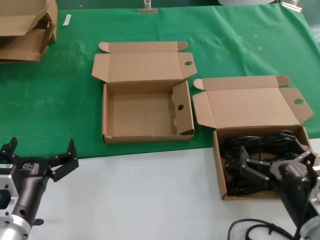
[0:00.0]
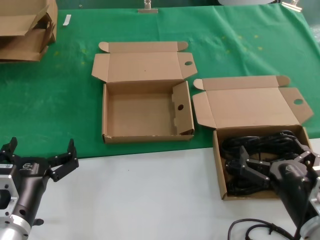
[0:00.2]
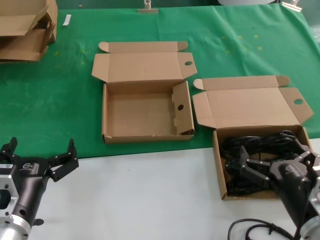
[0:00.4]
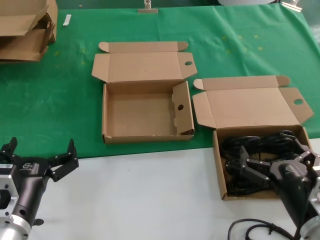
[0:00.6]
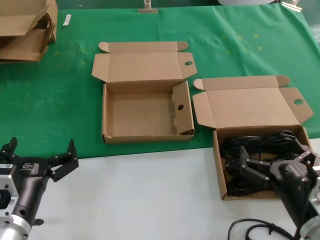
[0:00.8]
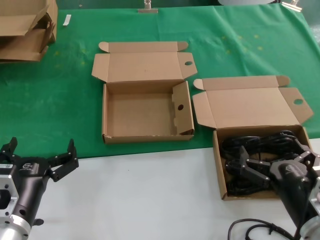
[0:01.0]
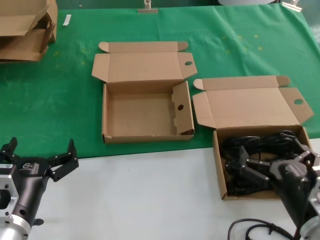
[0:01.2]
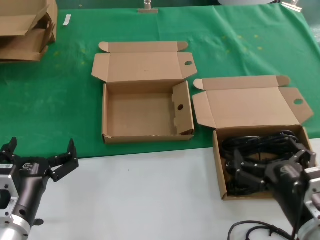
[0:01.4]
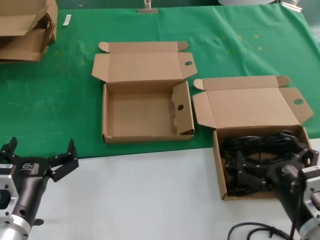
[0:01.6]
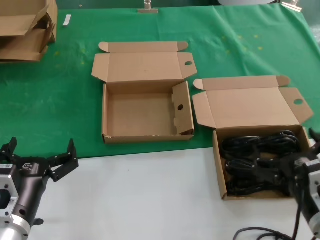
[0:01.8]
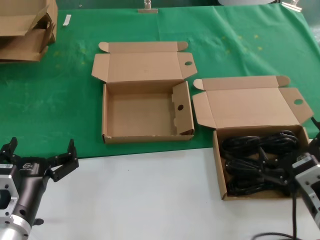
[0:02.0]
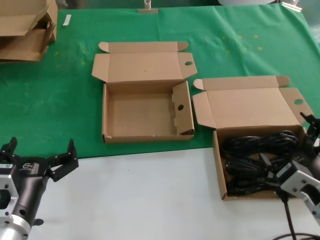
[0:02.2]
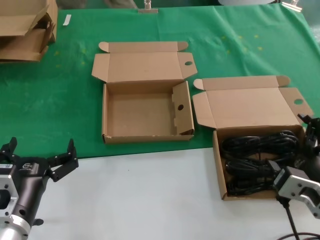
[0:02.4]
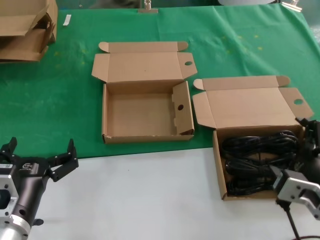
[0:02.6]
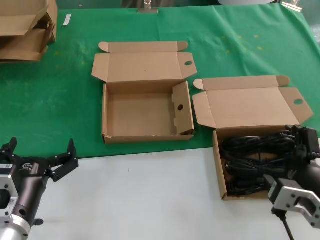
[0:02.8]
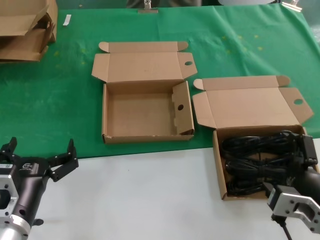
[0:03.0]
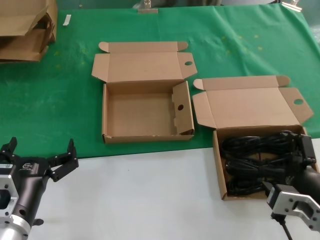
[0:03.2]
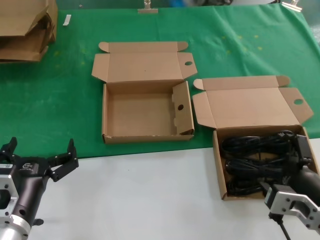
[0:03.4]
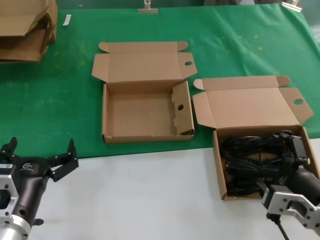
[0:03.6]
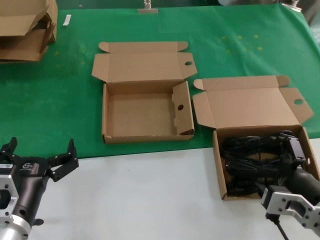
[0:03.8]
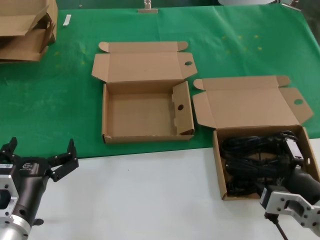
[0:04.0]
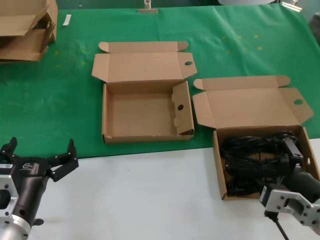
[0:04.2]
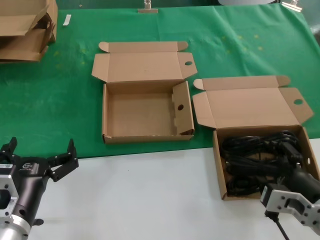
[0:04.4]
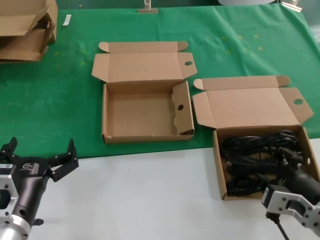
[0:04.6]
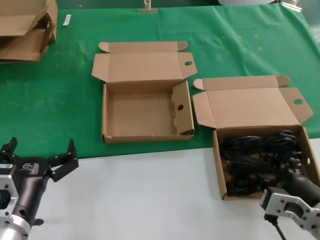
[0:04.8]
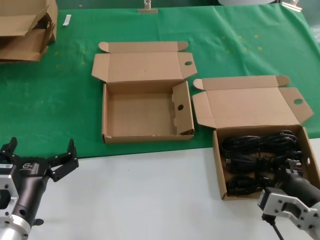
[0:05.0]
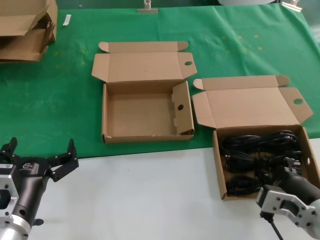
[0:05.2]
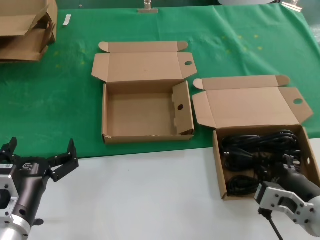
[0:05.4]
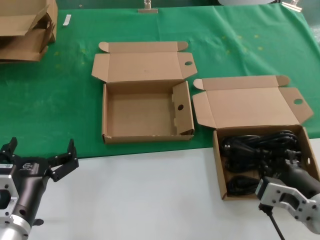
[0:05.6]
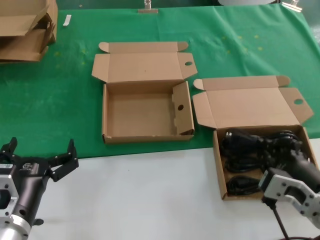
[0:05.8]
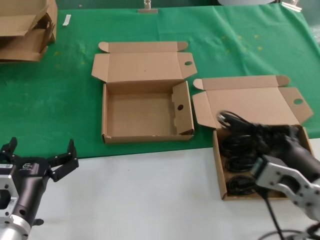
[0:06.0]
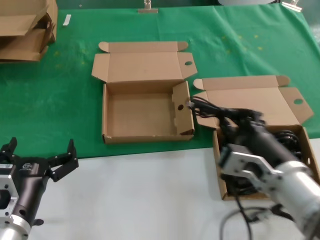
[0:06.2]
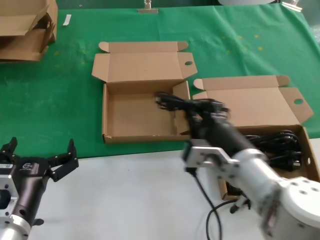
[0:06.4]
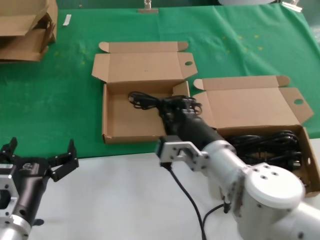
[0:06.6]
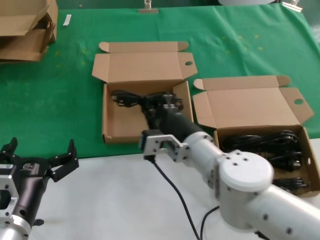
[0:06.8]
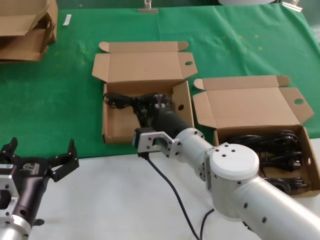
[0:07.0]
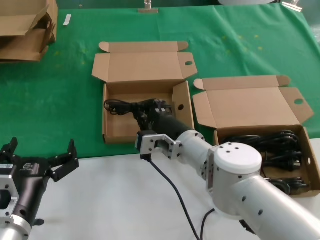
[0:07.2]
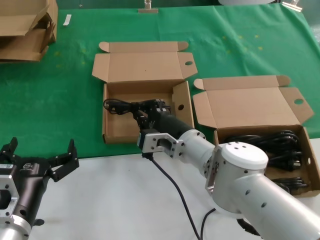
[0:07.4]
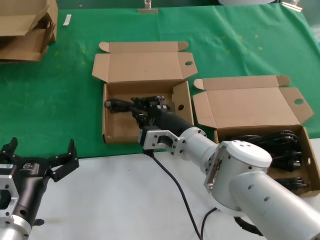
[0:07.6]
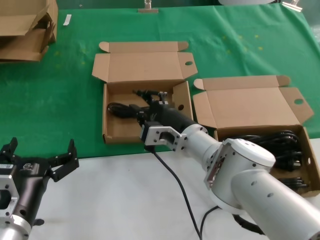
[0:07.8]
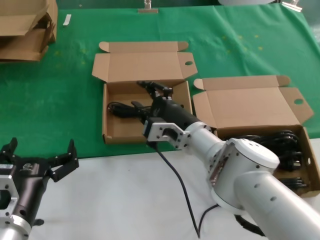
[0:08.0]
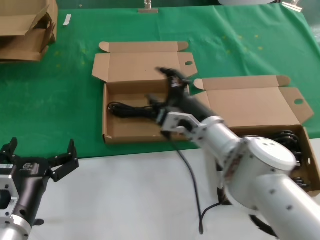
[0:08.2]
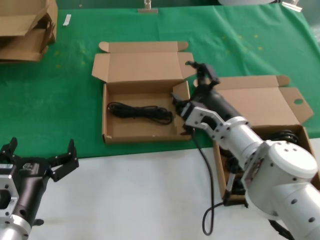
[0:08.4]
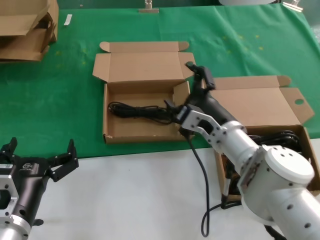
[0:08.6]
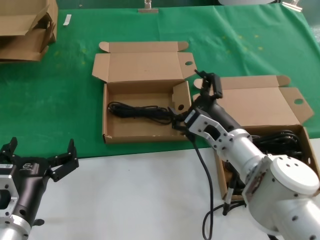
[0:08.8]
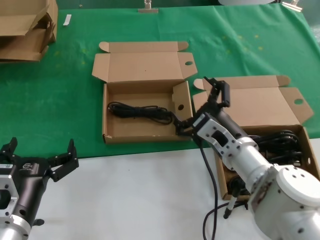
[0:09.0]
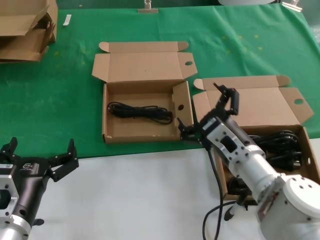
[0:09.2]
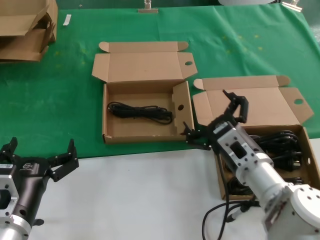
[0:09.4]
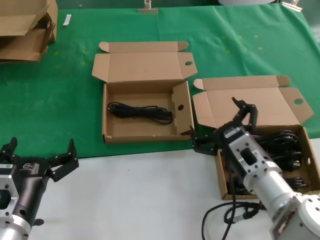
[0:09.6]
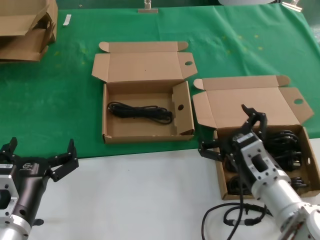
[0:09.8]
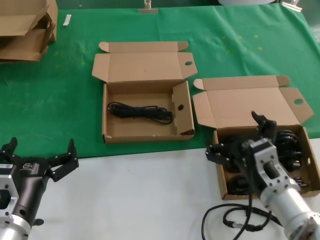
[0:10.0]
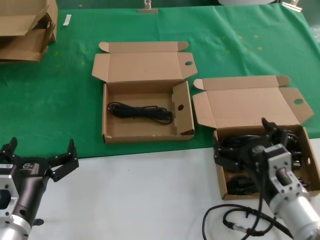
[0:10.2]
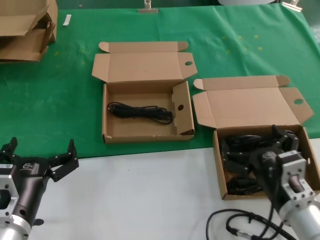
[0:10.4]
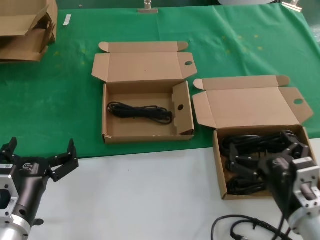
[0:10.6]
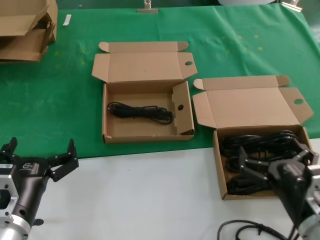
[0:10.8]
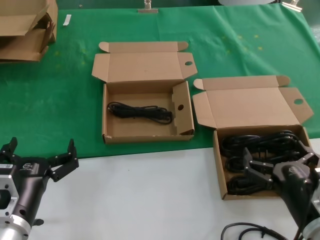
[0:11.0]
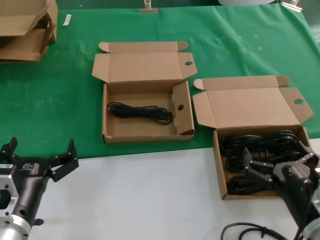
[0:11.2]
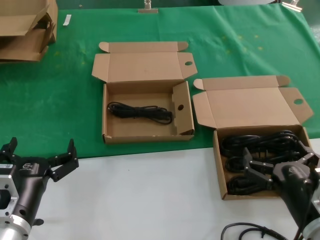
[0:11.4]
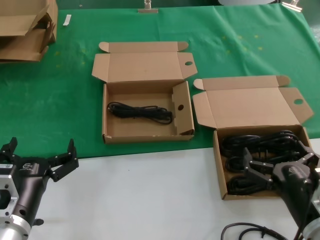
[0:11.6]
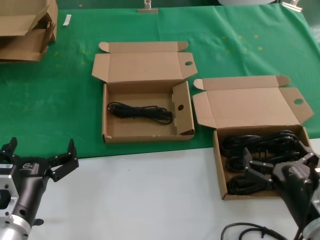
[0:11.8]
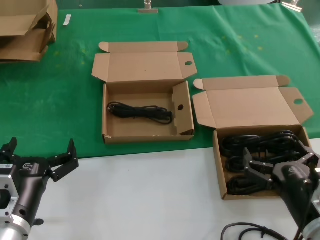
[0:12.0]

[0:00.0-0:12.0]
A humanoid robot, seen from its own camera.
Task of the whole recording: take the parts from the box containing them and put them into an empty box.
Step, 0.0 to 5.0 s: Grasp the data cable.
Step, 5.2 to 7.6 s: Place the data cable in the another box.
0.0 to 1.6 s: The hands stay close to where they were, moving slightly.
1.6 to 3.0 s: The right hand heads upward, covering roughly 5 cm.
3.0 to 4.4 s: The hands stay close to where they were, moving slightly.
4.4 to 6.0 s: The right hand moves upward, approximately 5 cm.
6.0 to 7.6 s: The right hand goes approximately 25 cm forward and to the left.
7.6 to 9.0 s: The right hand shifts approximately 10 cm to the right.
9.0 to 10.4 s: The right hand moves backward and to the right, approximately 15 cm.
10.4 to 12.0 s: The right hand moves some 5 cm.

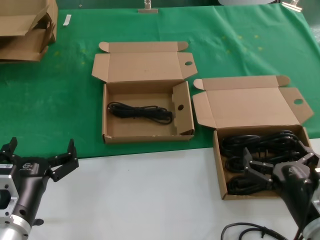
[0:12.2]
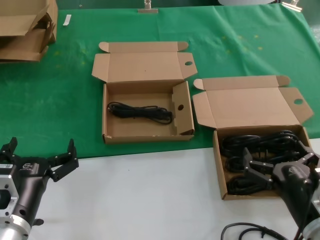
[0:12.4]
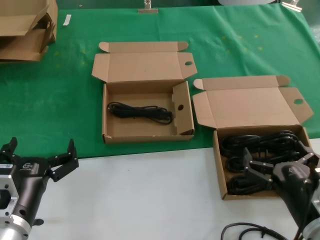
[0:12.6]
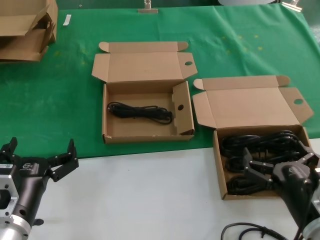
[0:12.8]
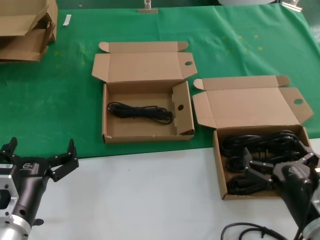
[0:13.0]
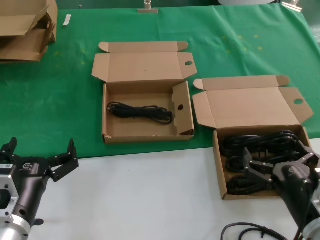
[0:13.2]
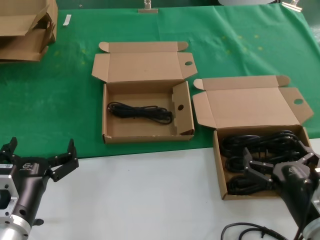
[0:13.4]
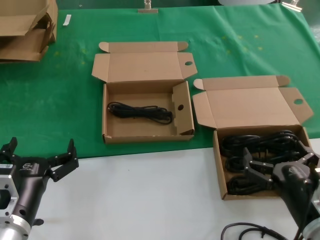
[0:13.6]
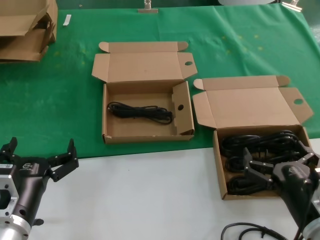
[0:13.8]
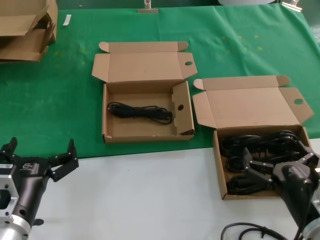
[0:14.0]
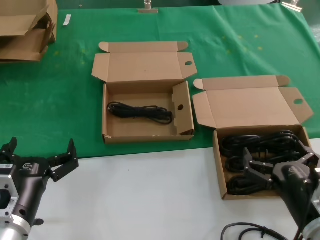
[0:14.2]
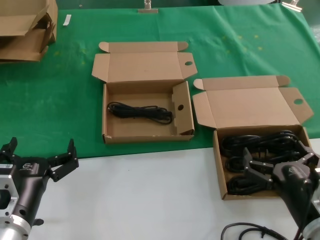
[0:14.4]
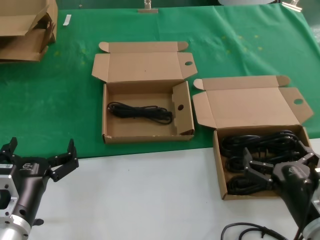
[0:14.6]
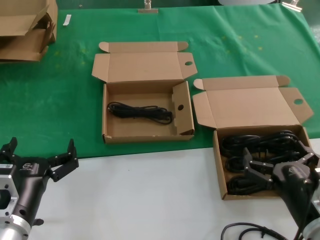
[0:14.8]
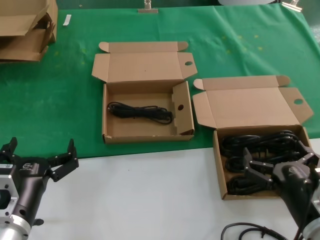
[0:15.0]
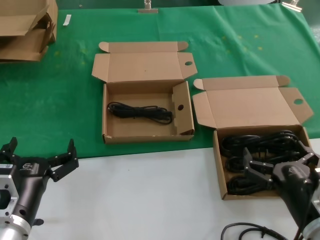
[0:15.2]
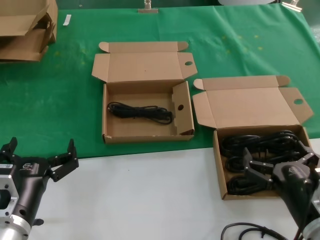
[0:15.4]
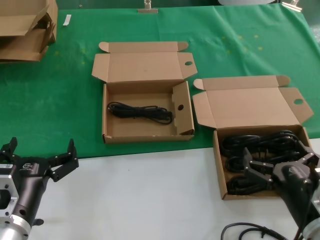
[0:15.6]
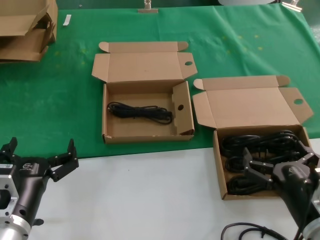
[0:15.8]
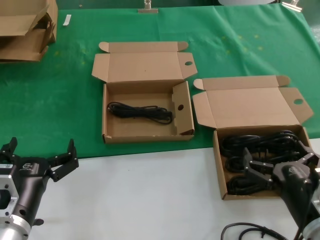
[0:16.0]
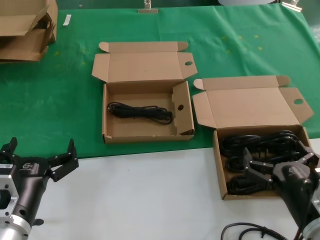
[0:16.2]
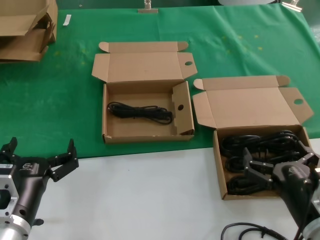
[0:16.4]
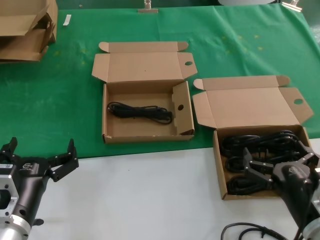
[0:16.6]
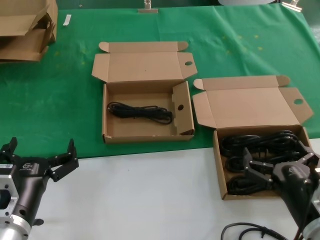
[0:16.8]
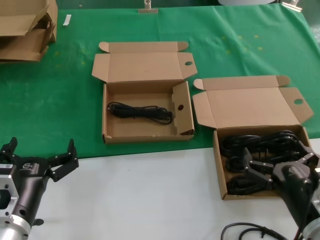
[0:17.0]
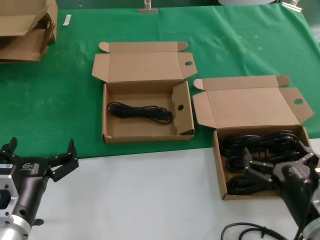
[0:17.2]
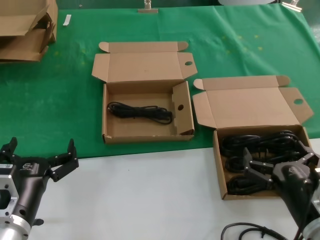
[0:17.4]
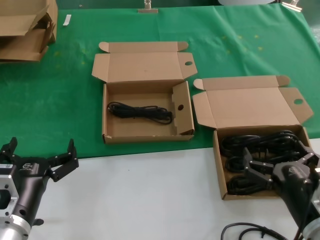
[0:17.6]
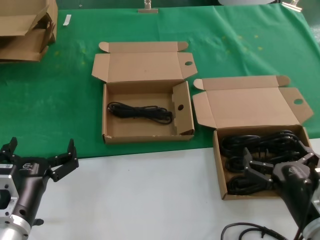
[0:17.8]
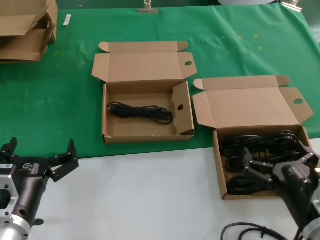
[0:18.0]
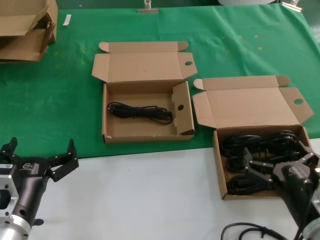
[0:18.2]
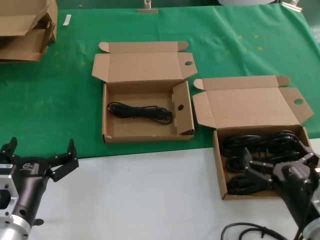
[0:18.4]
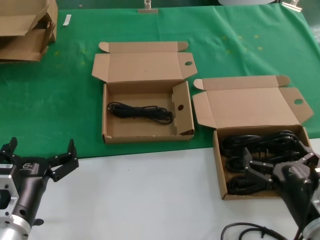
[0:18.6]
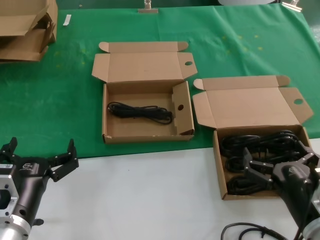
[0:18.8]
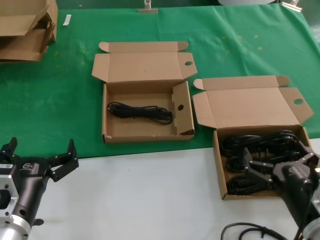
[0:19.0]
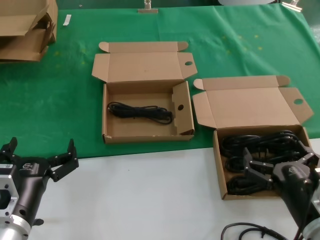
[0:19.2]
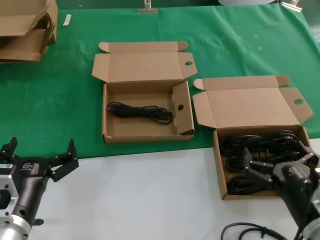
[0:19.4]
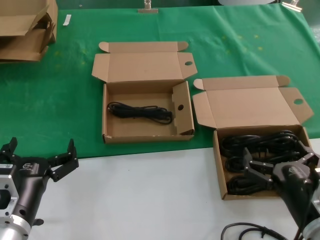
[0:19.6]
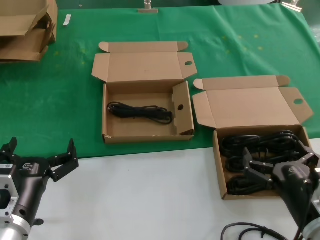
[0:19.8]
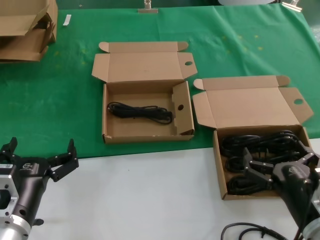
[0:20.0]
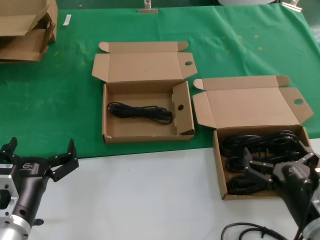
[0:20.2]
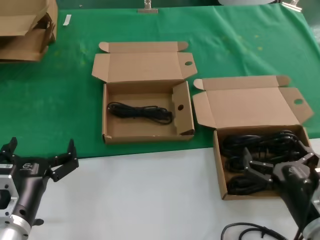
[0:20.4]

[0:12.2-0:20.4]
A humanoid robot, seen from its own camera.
Task of the whole recording: take the parts from the box containing them and put them into an empty box.
12.2 to 20.4 s: Neither hand changes place.

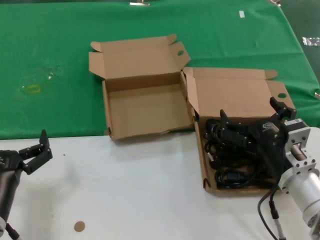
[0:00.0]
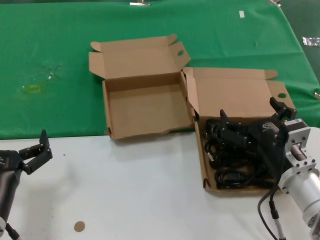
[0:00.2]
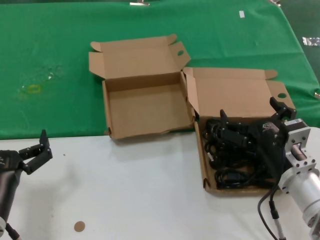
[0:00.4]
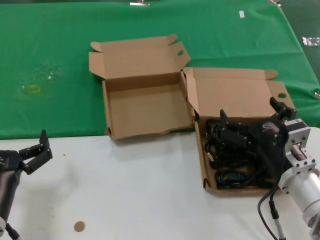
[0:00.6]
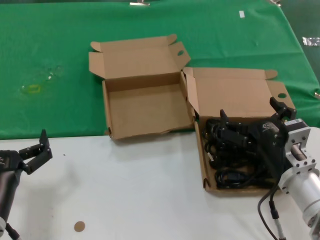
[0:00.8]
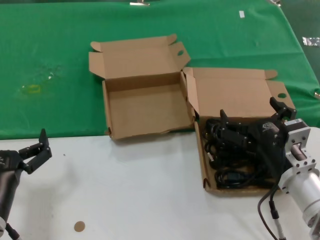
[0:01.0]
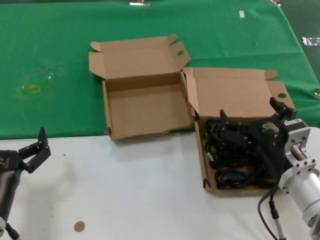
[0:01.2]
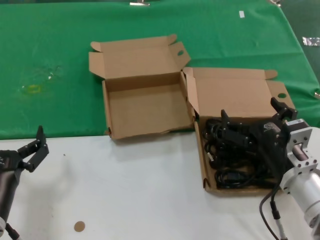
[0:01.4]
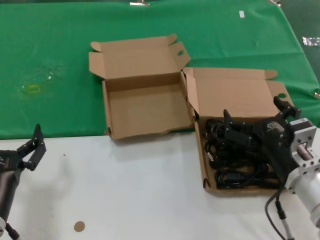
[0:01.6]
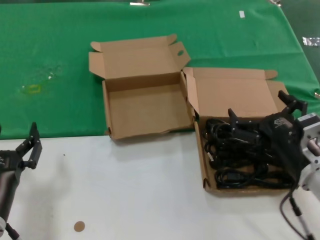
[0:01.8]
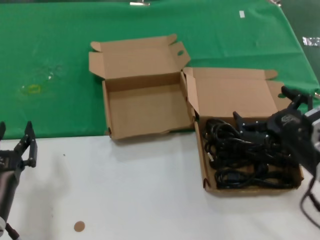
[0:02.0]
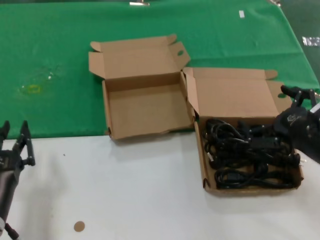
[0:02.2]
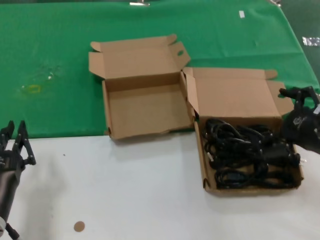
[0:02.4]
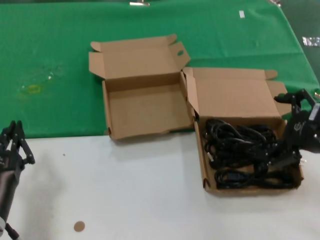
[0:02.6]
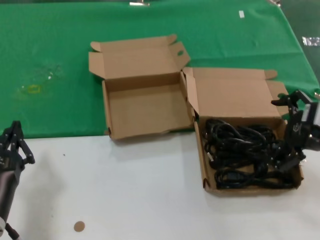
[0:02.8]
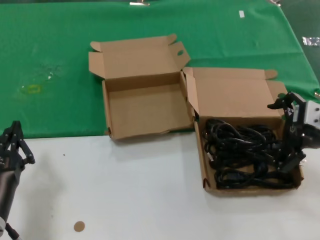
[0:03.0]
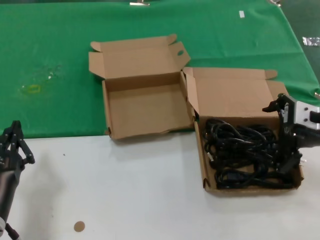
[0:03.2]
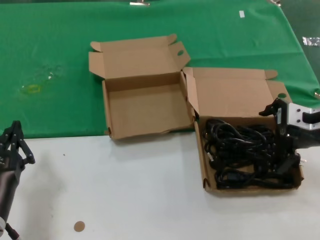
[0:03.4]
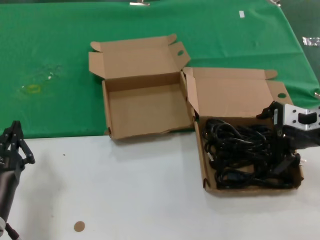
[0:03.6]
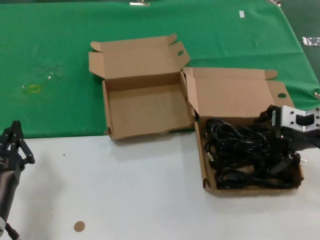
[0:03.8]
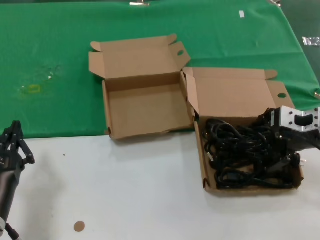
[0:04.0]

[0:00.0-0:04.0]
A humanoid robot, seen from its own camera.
Task of the whole recording: take the parts from the box containing them and put them into an empty box.
0.0 to 1.4 s: Both hands stay about where they are.
1.4 to 2.6 s: The right hand shifts some 15 cm upward and to the right.
2.6 to 4.0 s: The right hand travels forward by roughly 10 cm.
